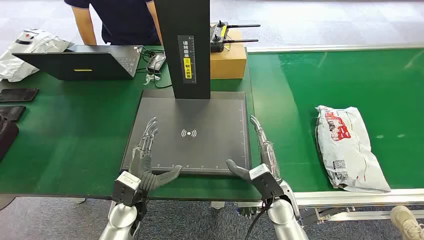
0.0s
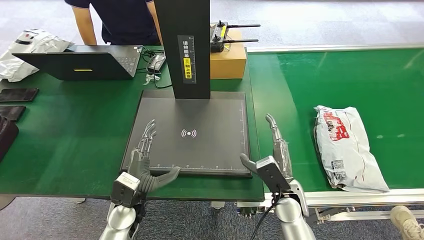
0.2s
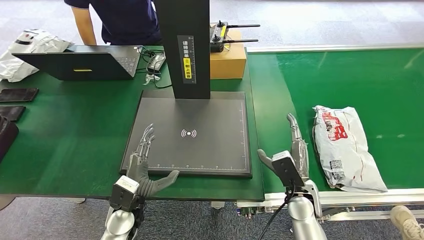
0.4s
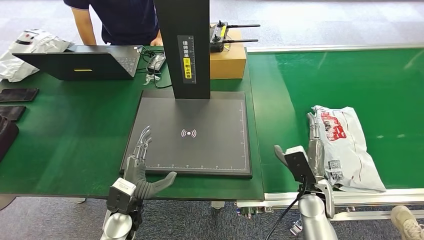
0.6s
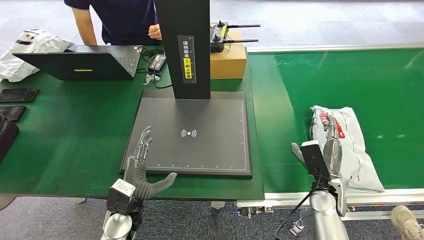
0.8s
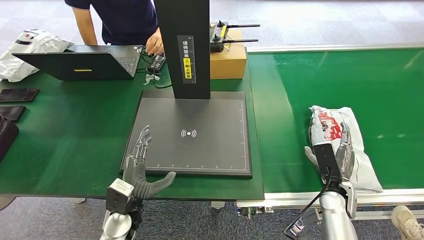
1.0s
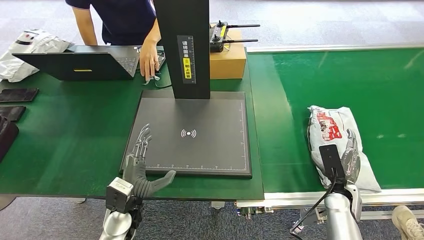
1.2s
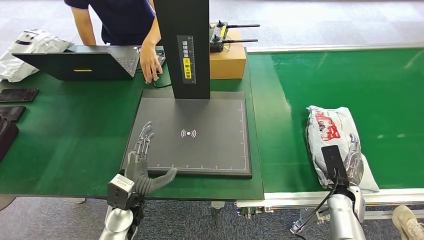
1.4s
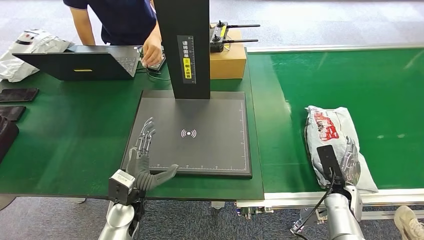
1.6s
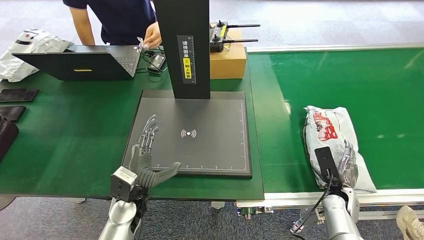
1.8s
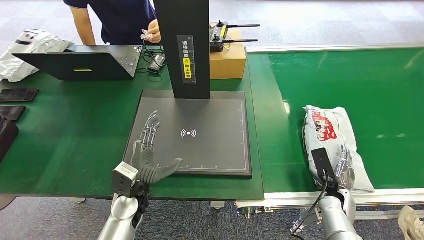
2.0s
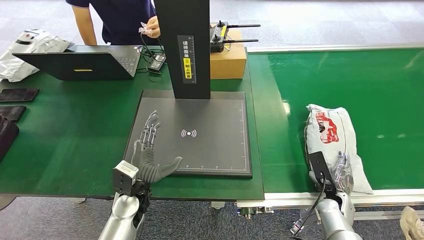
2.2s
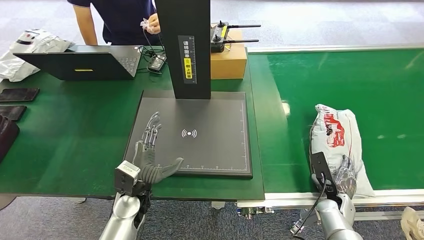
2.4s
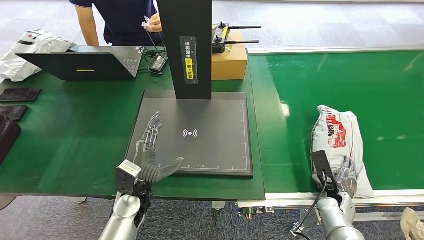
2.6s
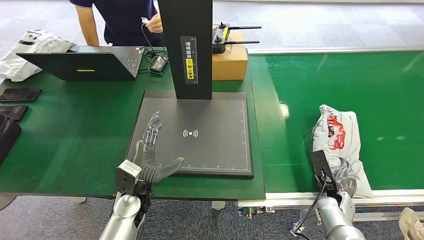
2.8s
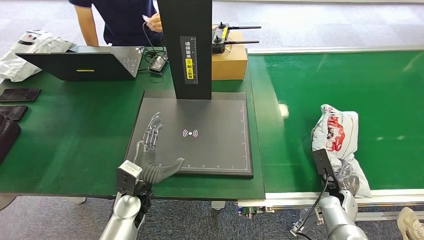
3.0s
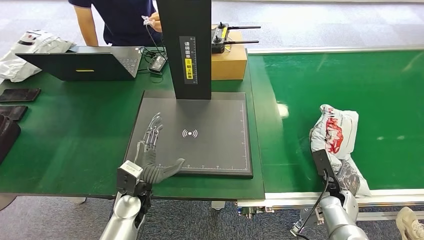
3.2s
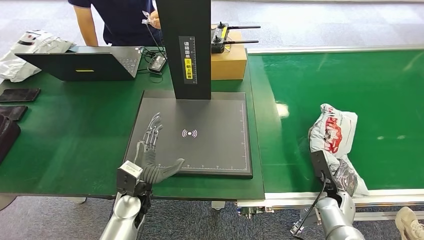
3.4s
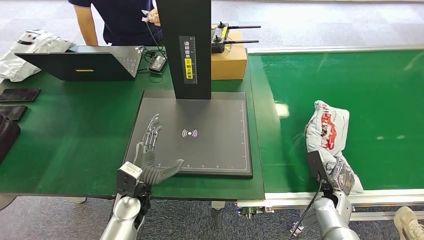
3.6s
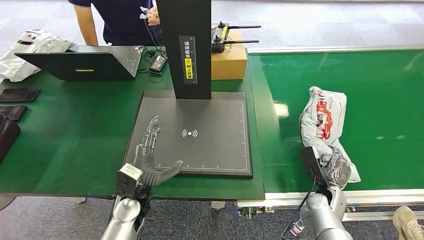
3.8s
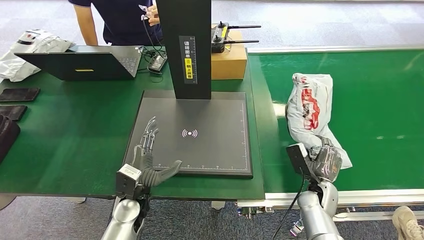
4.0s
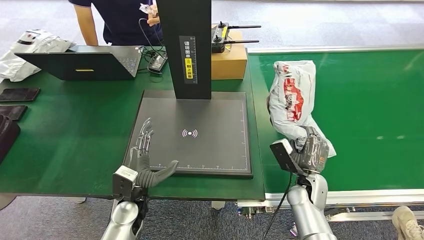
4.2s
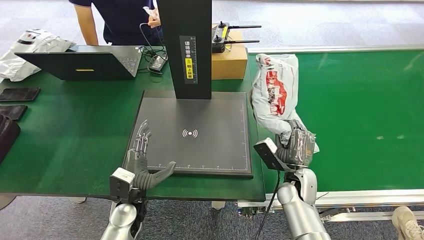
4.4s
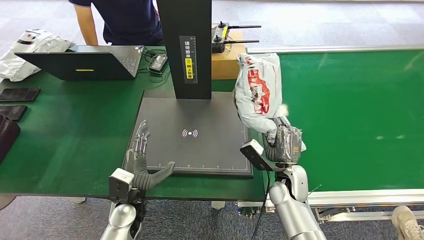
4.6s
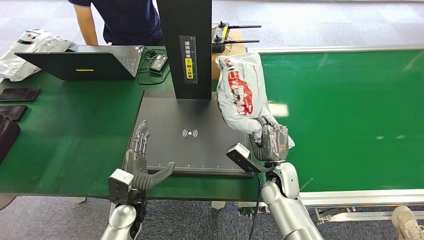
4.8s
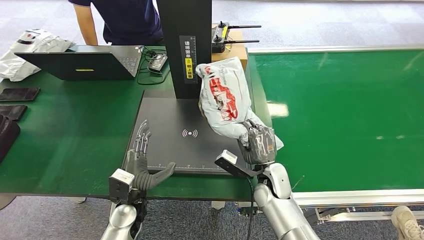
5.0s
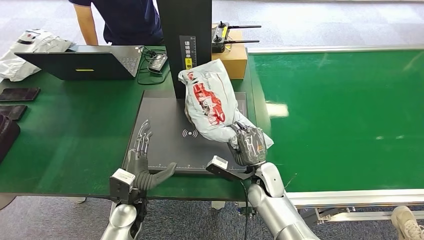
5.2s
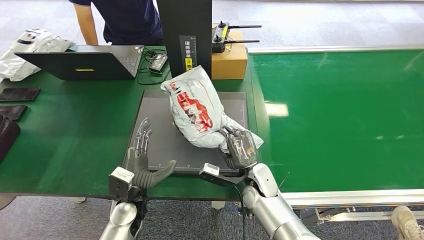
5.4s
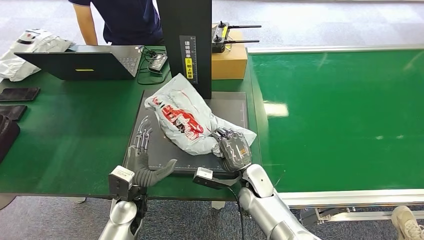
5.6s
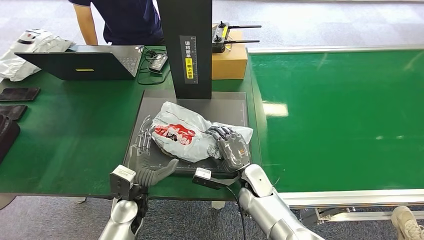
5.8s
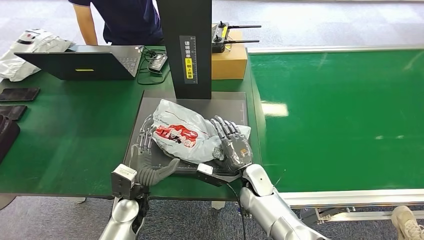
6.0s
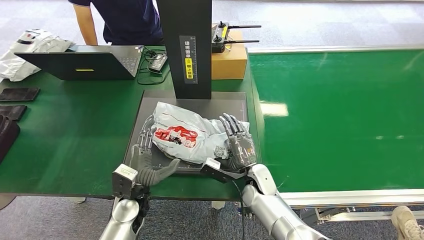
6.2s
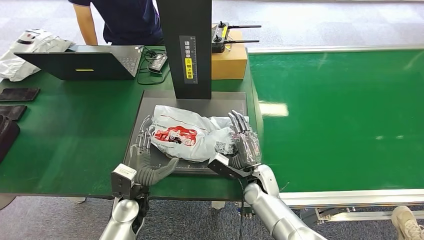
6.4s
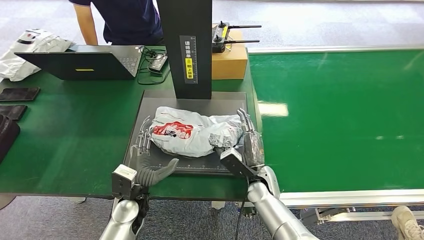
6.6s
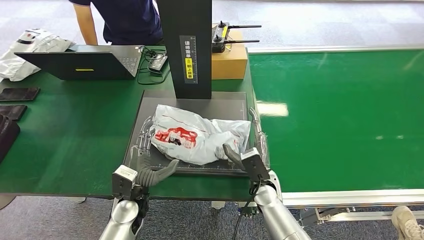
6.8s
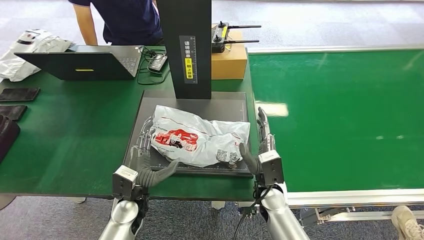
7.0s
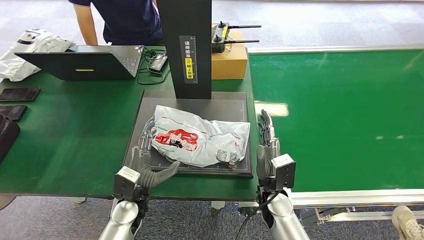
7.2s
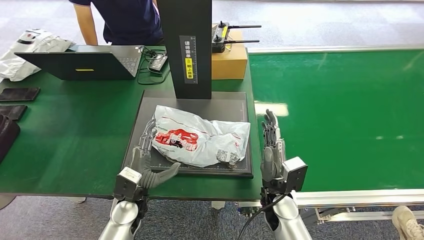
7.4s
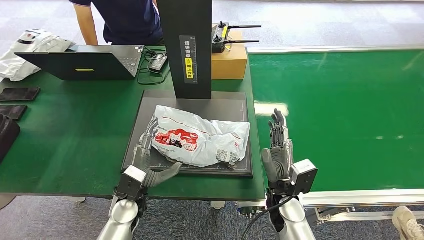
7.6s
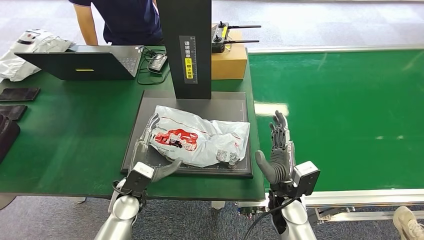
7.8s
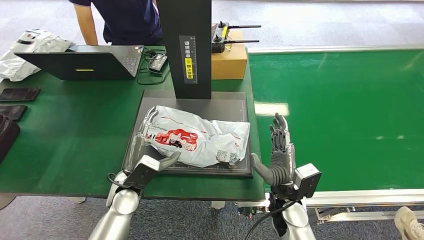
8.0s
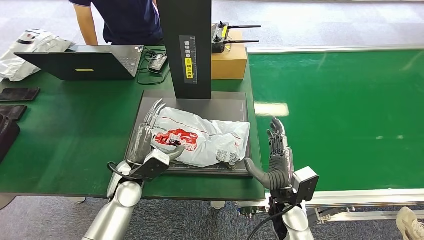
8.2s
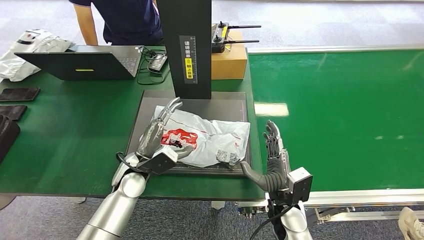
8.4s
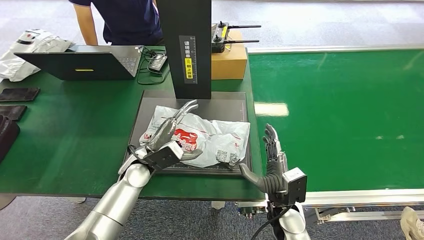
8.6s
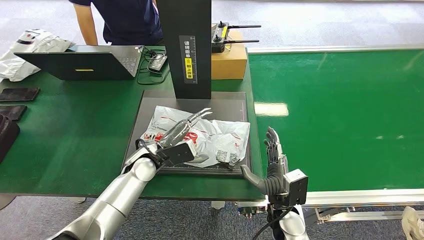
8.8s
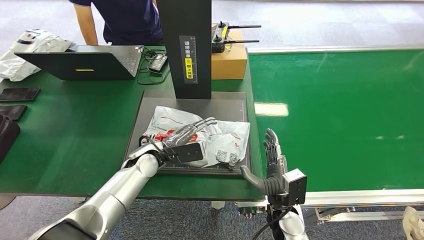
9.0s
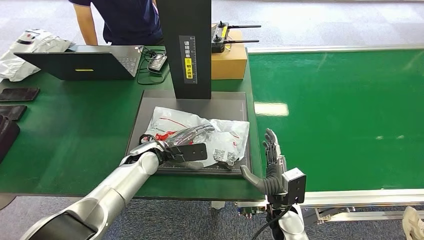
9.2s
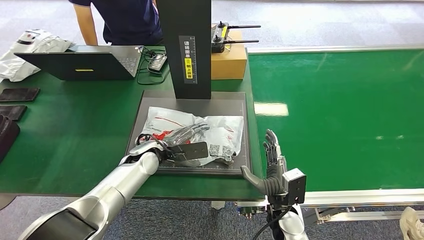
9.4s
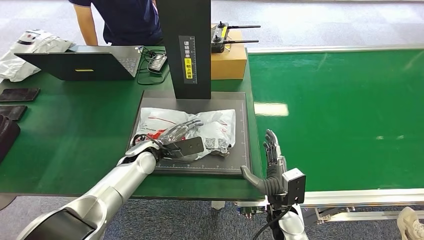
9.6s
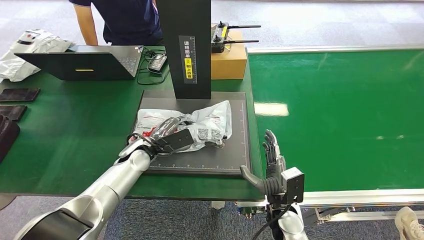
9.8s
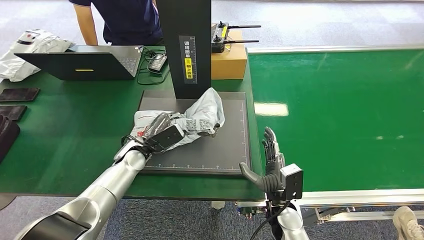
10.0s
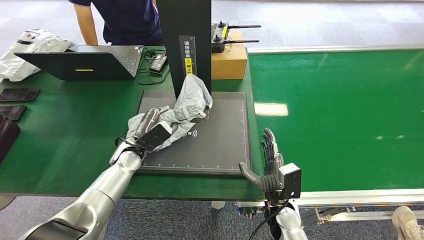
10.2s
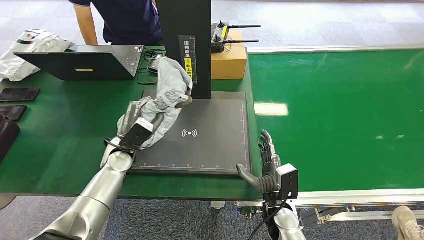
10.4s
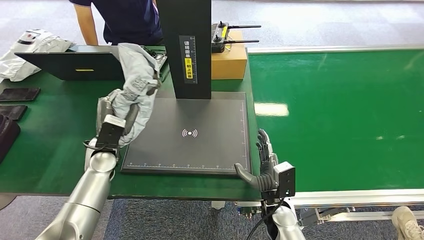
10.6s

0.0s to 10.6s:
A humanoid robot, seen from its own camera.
Step, 0.0s to 4.2s: Pick up the package from the conveyor belt.
Step, 4.4s to 7.6s: Place the package onto the inbound machine.
Step, 7.8s to 10.2s: Pick up the package from the inbound machine.
3.0s to 4.6s: The right hand travels to the left and upward by some 20 cm.
4.6s to 6.0s: The right hand moves to the left, about 10 cm.
6.0s to 7.6s: The right hand shifts some 10 cm backward and to the right.
7.6s to 9.0s: The left hand goes about 10 cm forward and upward.
9.0s to 10.6s: The left hand is displaced to the left by some 10 cm.

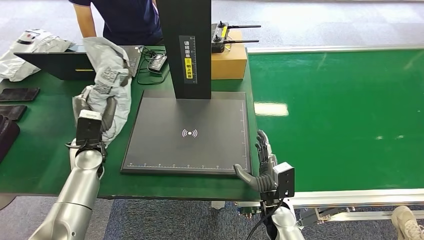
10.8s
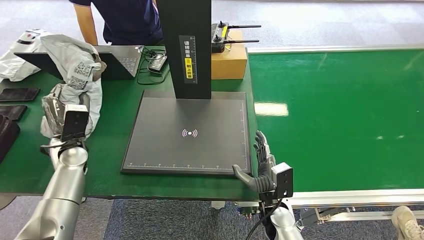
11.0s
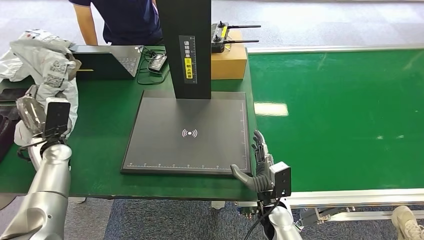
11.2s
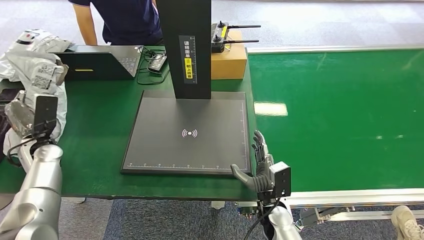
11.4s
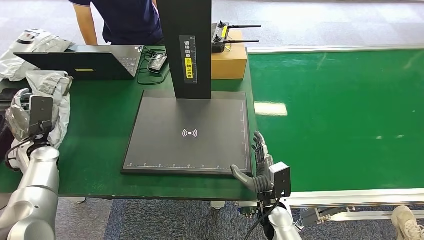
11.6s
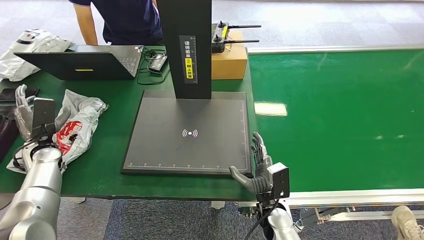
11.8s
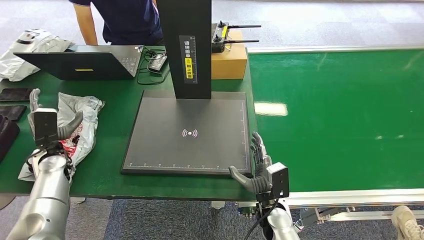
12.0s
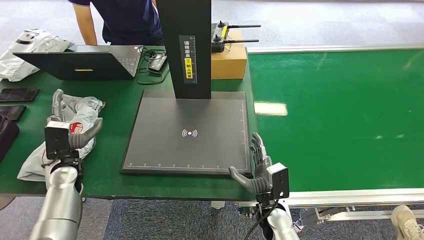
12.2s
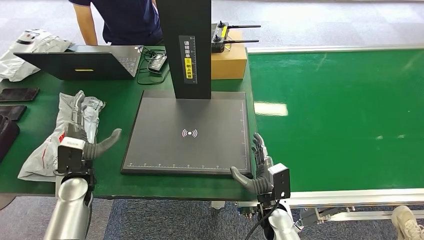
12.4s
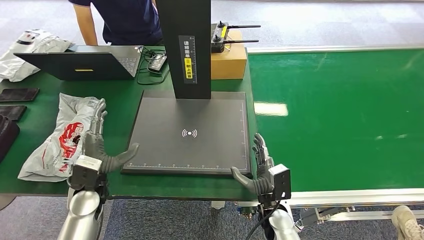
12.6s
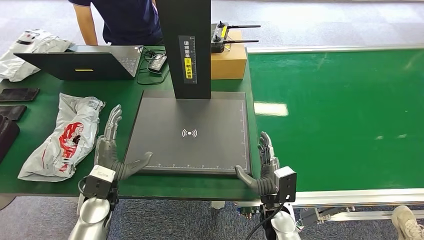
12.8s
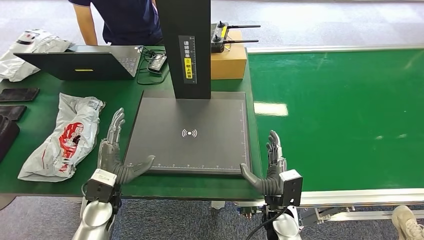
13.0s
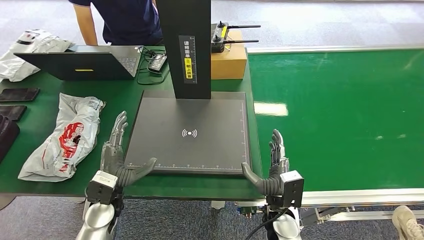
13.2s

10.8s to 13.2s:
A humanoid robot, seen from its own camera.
Step, 10.8s to 13.2s: Place the package into the parcel locker.
10.8s to 12.0s: The left hand moves to the left, some 10 cm.
12.0s to 13.2s: The left hand heads to the right and backward, covering approximately 20 cm.

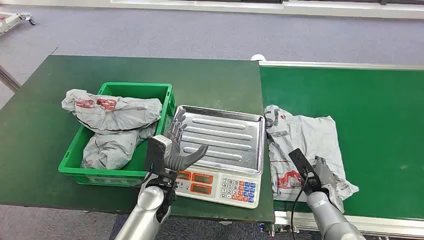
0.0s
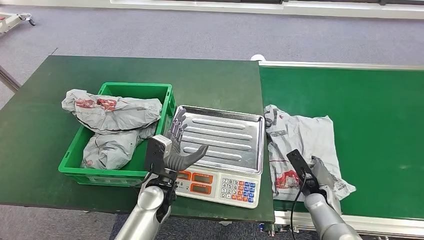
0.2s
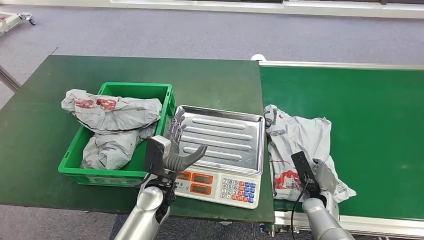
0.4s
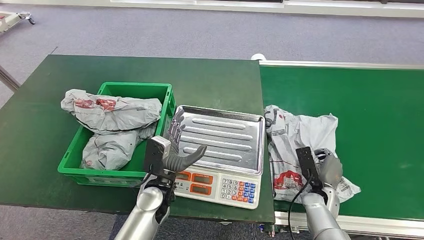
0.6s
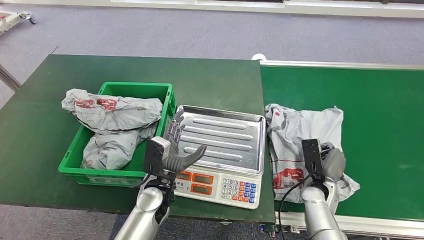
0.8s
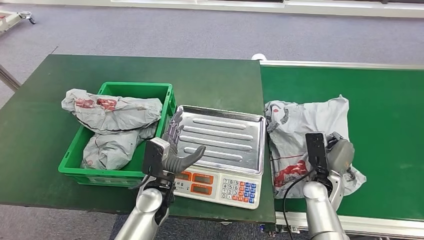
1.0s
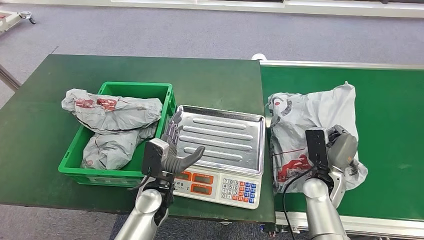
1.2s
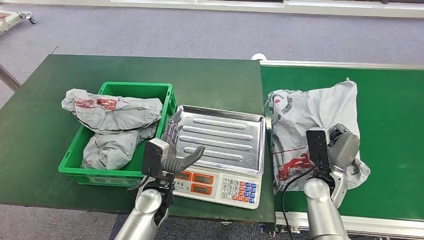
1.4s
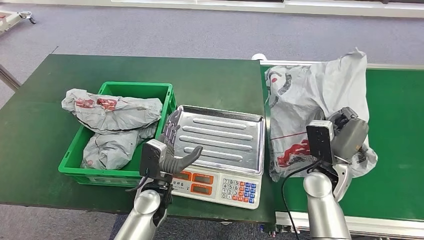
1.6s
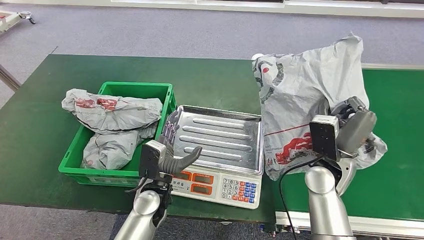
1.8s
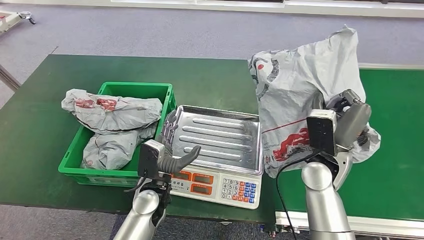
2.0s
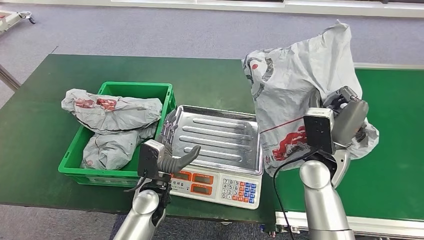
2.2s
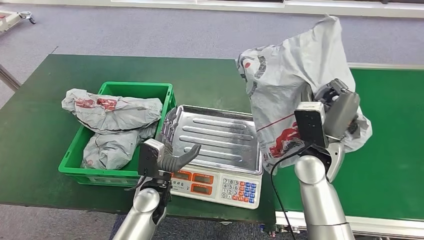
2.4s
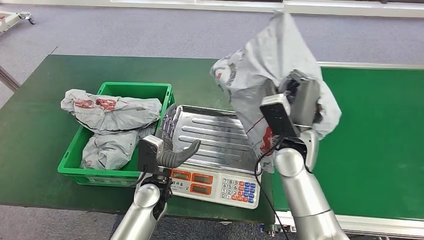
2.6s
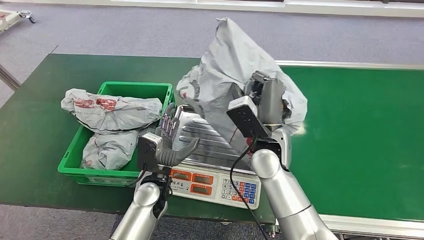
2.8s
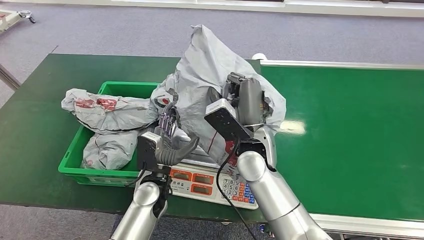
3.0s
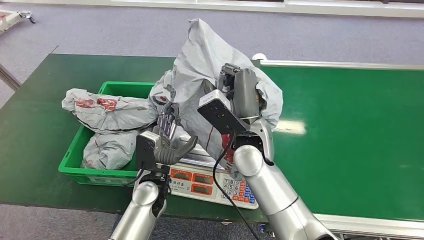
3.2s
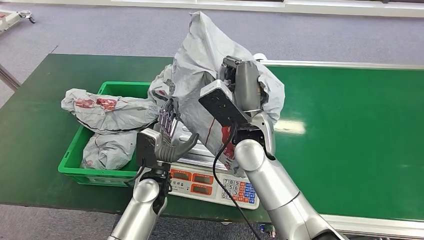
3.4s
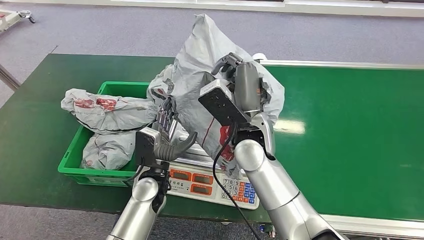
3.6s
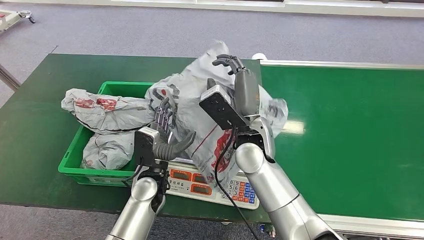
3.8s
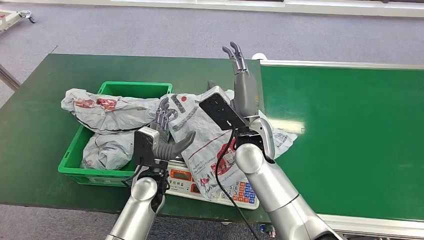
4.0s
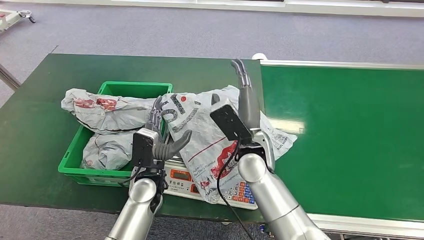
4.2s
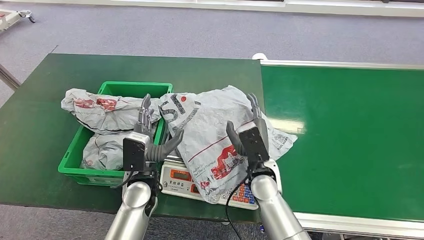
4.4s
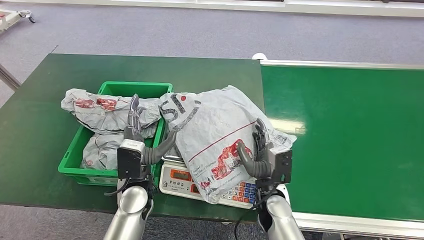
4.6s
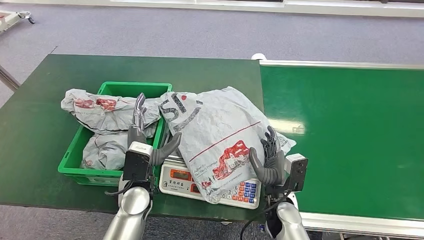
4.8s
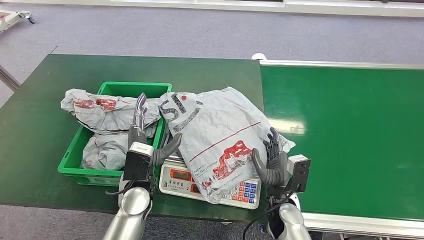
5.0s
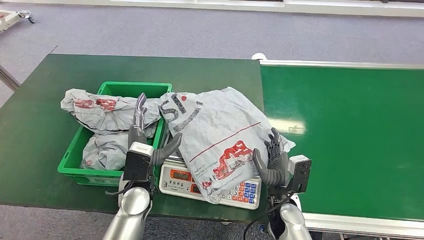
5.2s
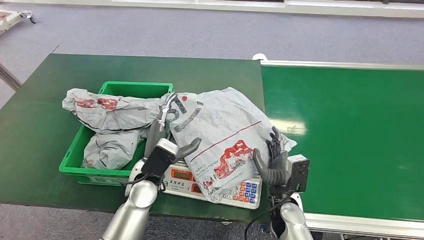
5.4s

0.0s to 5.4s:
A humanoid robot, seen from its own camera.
Step, 0.0s to 2.6s: Pick up the package from the conveyor belt.
Step, 2.8s to 5.2s: Place the package onto the inbound machine.
4.0s to 5.4s: The right hand shifts some 25 cm downward, to the right and backward.
